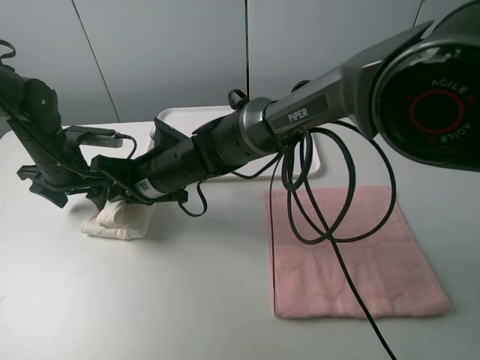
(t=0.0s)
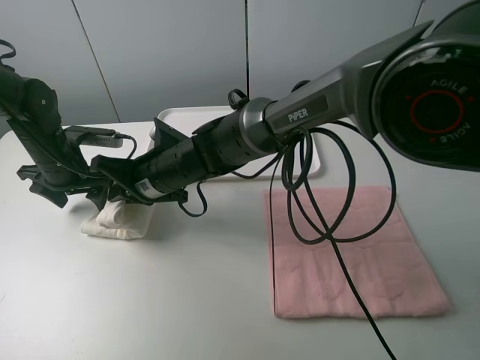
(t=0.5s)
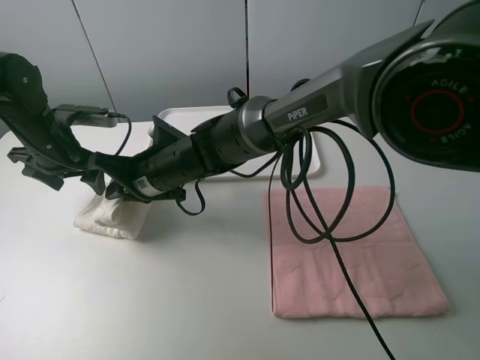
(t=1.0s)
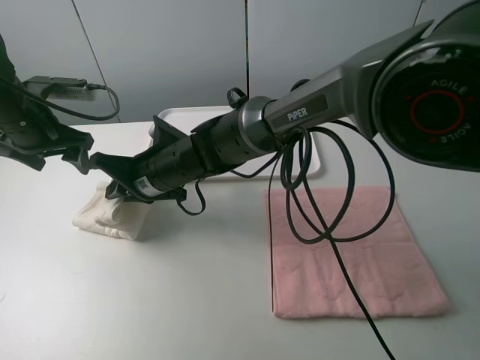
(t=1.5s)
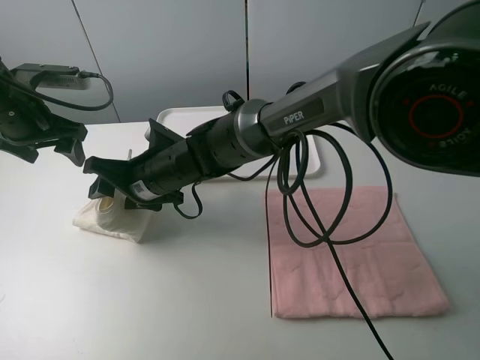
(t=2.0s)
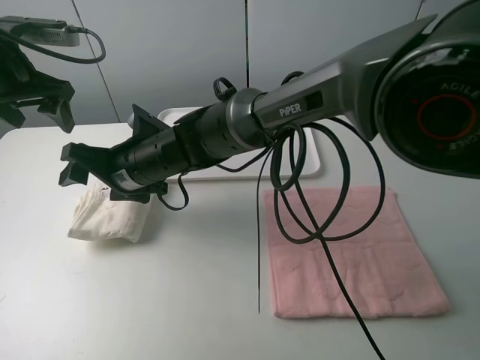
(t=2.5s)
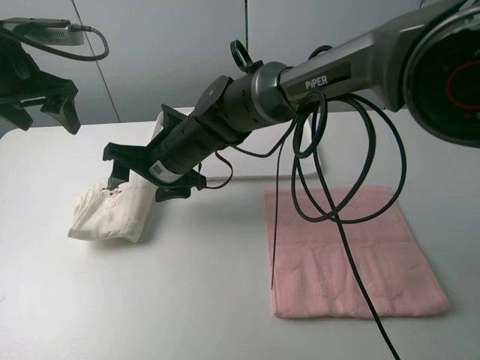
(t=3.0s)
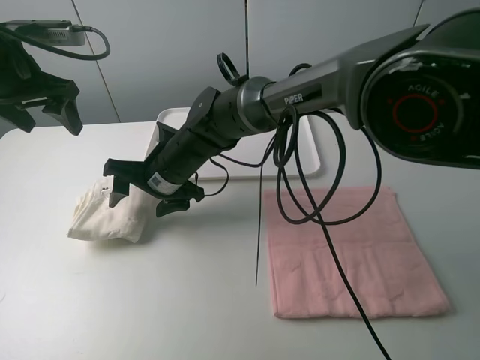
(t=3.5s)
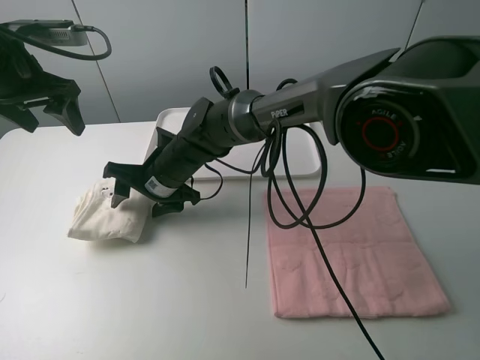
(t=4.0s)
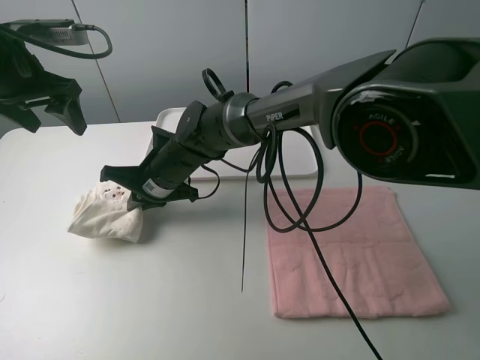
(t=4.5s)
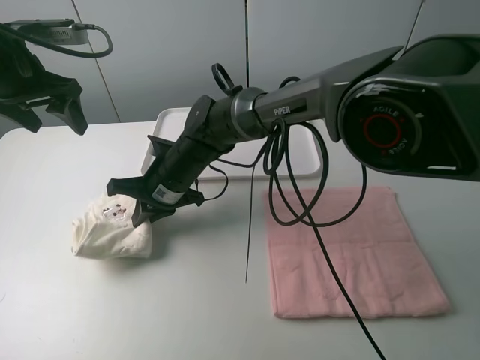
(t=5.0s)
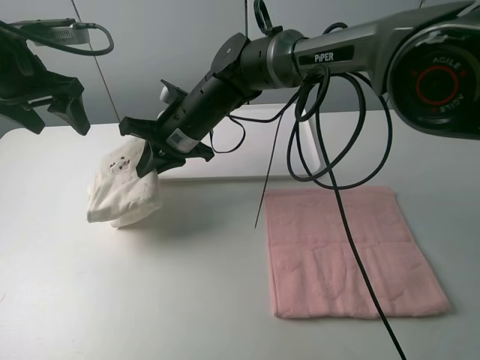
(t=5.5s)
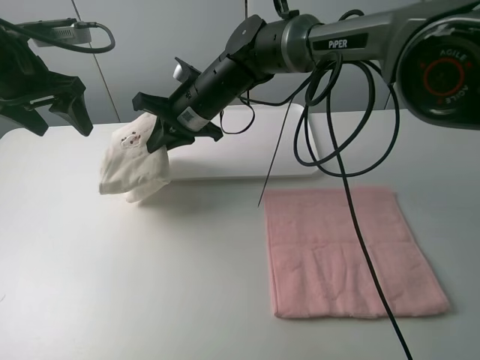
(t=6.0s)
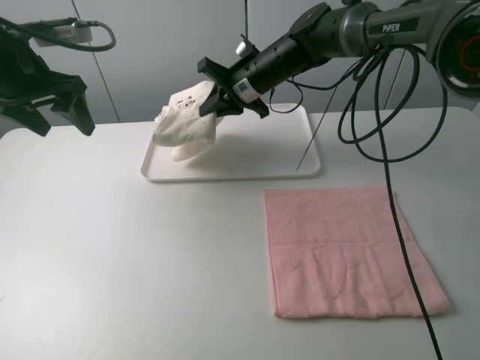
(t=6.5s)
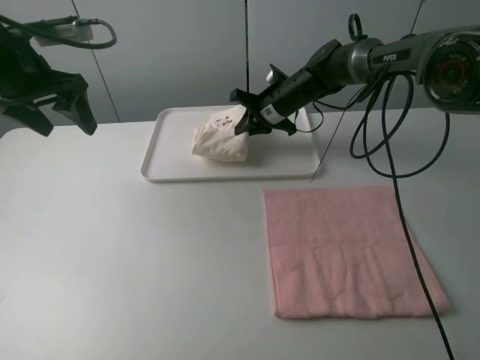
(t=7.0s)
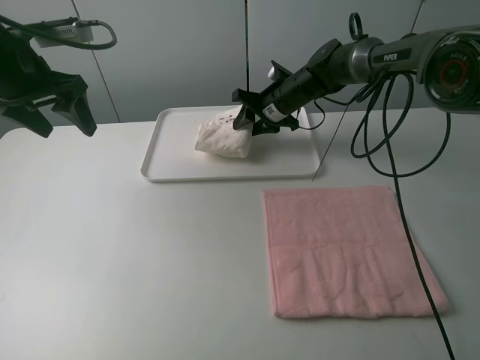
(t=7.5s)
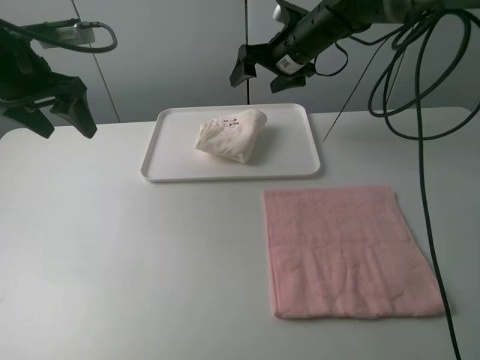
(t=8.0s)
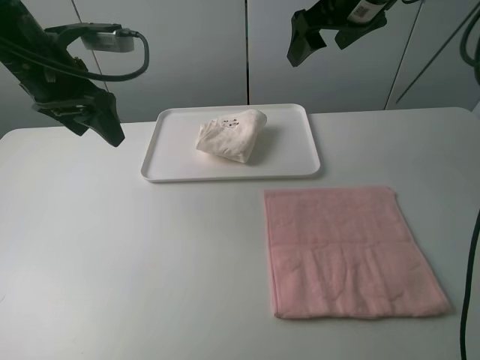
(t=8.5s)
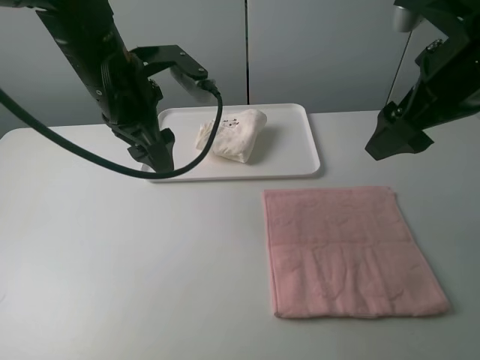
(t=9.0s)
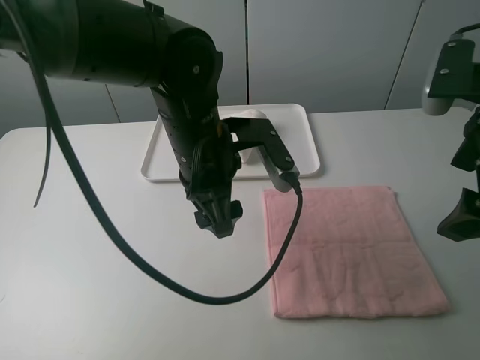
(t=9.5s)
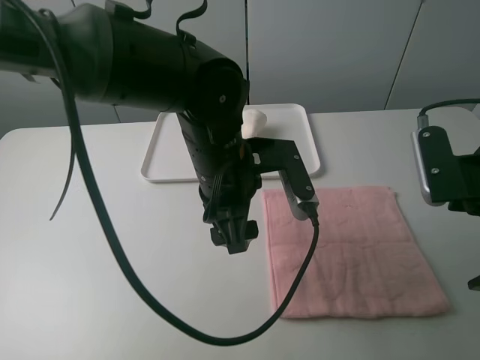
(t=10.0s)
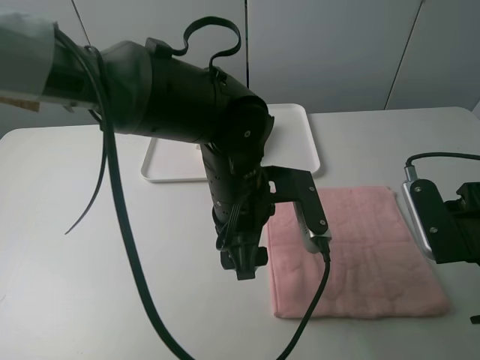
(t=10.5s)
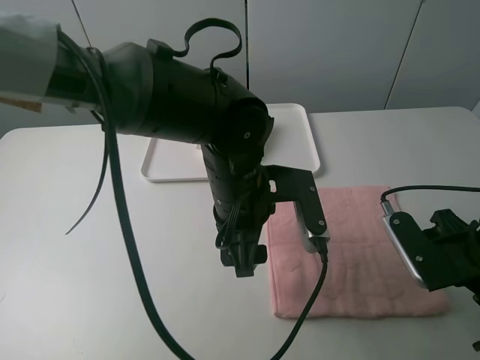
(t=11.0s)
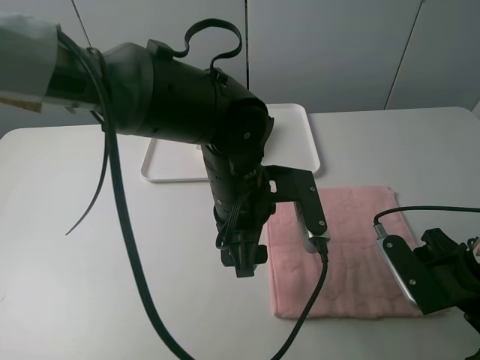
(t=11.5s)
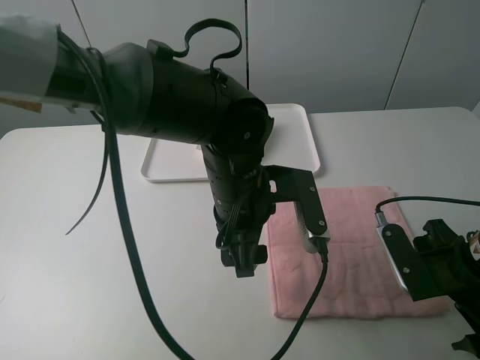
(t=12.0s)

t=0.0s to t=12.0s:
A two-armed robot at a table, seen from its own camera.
Task of the whole recording: fold one of the towels by two grippers and place it on the tray,then fold another towel by two grippers and place it on the folded towel.
Step, t=0.0s to t=2.5s: Fold the white towel from right to left with right gripper.
Step, t=3.0s to t=4.5s: Grasp the white towel with the right gripper.
Step, t=5.0s to t=7.5s: Move the white towel to the plate with the right gripper.
t=0.0s to t=2.0s: The left gripper travels upward by approximately 10 cm. Meanwhile the right gripper opens up.
t=2.0s to t=4.0s: The left gripper moves upward, approximately 5 cm.
t=4.0s to t=6.0s: The right gripper travels upward, forward and to the right by roughly 10 cm, and closes its fingers.
t=6.0s to t=8.0s: The right gripper moves to the right and forward, approximately 15 cm, and opens its fingers.
t=8.0s to t=10.0s: The right gripper goes roughly 35 cm backward and to the right. The left gripper shifts roughly 25 cm to the right.
t=10.0s to t=12.0s: The right gripper shifts roughly 10 cm downward.

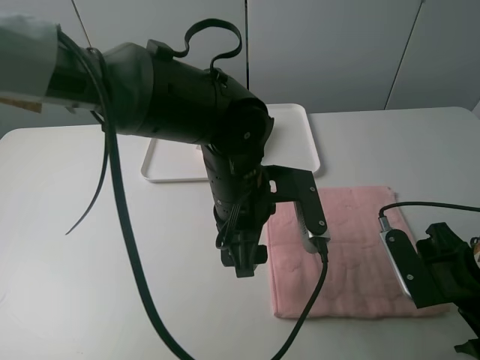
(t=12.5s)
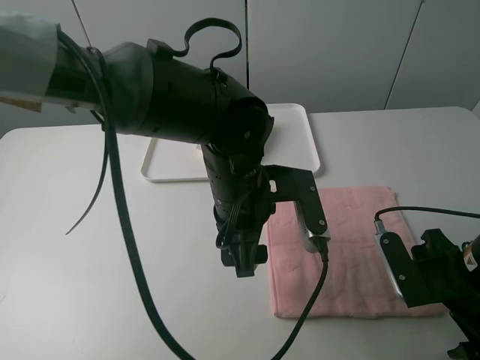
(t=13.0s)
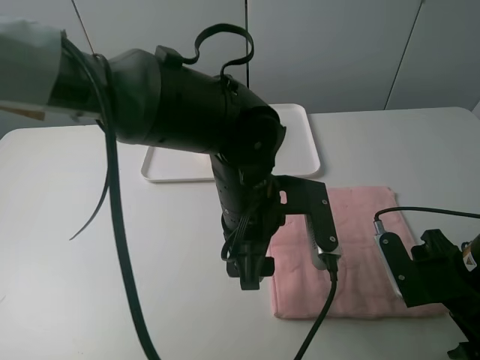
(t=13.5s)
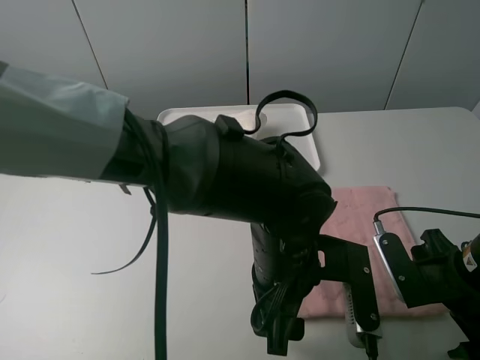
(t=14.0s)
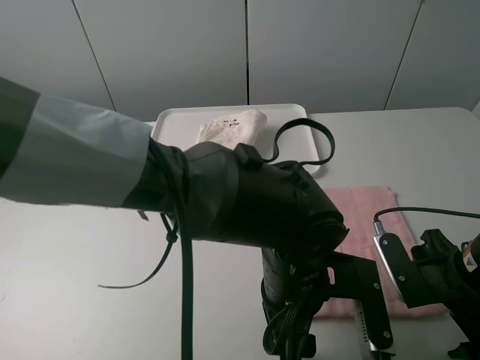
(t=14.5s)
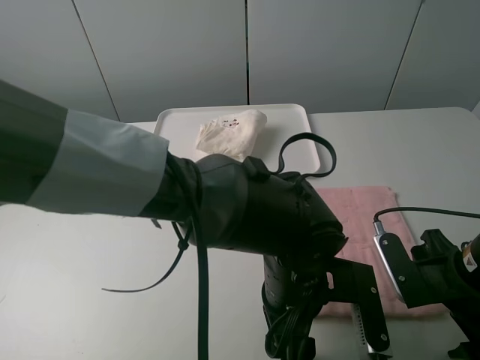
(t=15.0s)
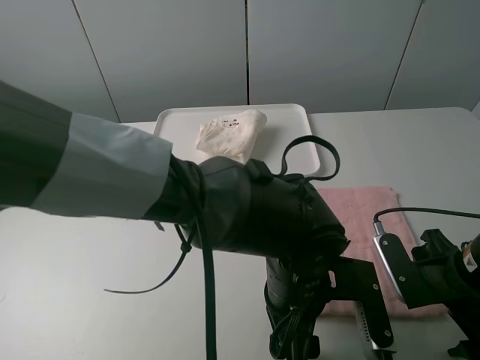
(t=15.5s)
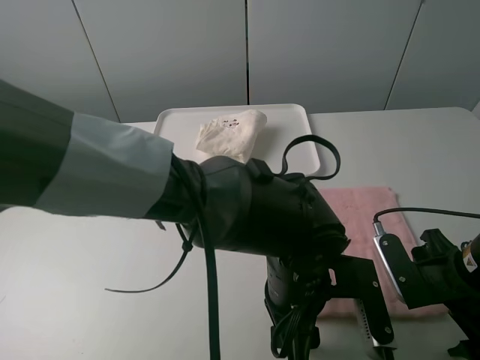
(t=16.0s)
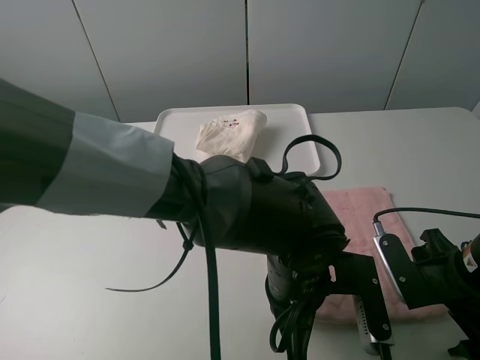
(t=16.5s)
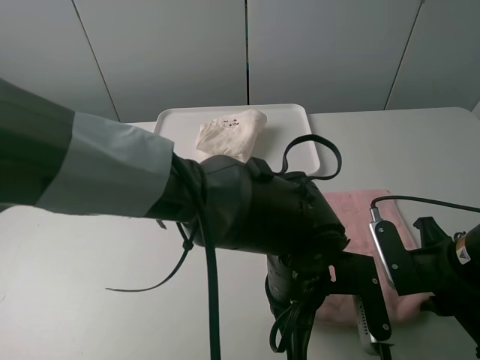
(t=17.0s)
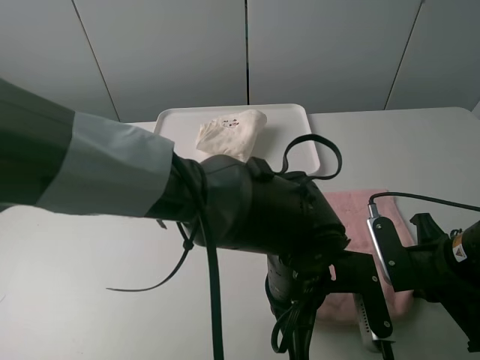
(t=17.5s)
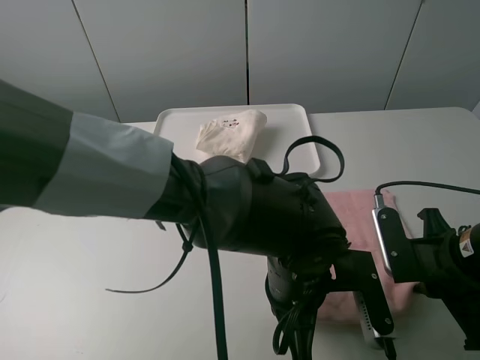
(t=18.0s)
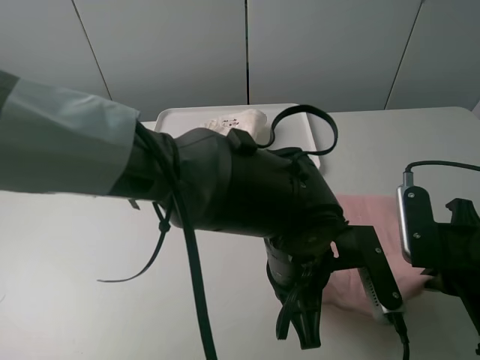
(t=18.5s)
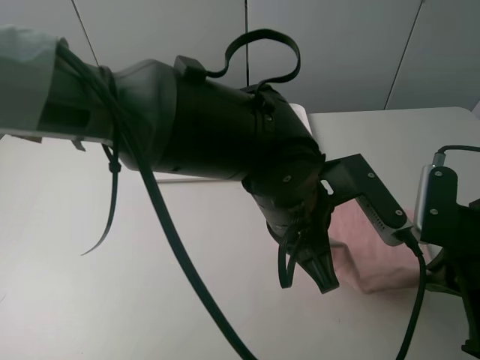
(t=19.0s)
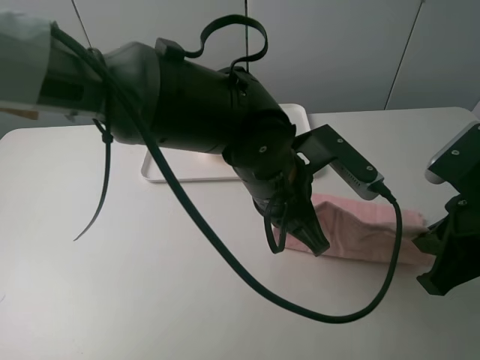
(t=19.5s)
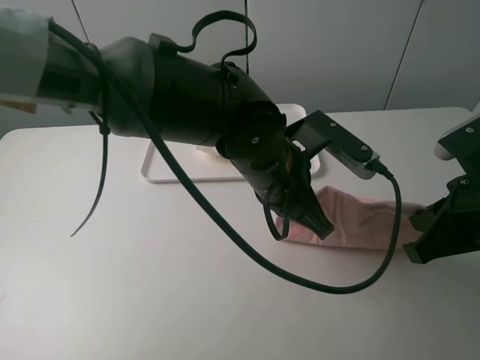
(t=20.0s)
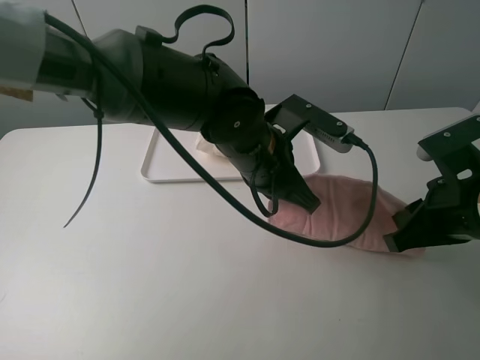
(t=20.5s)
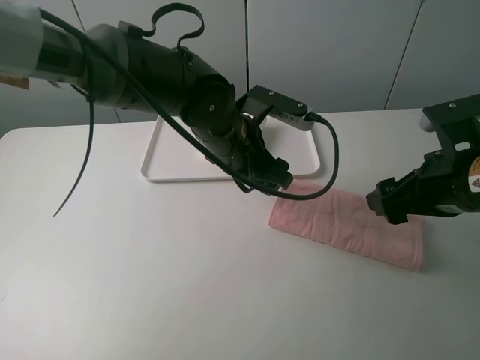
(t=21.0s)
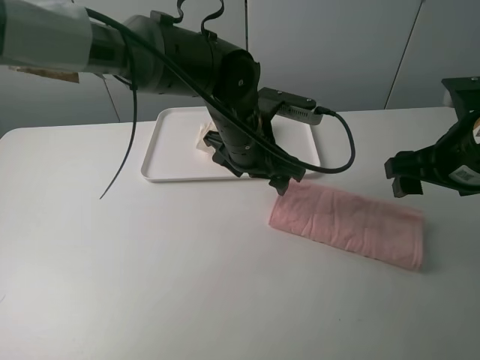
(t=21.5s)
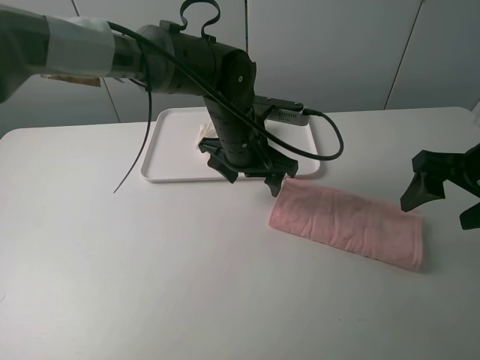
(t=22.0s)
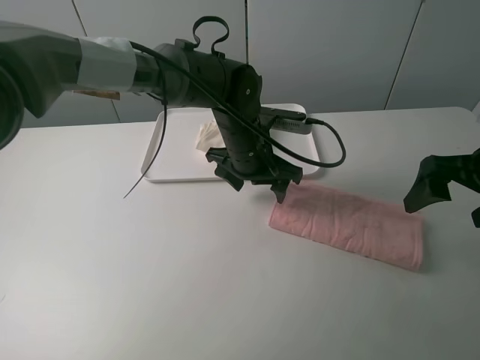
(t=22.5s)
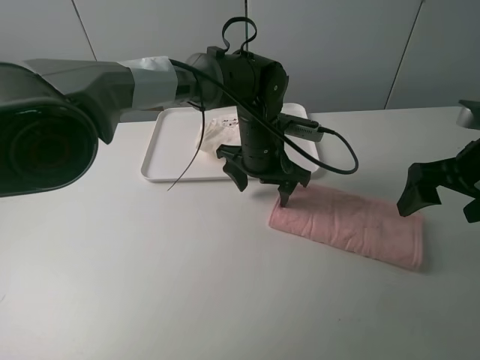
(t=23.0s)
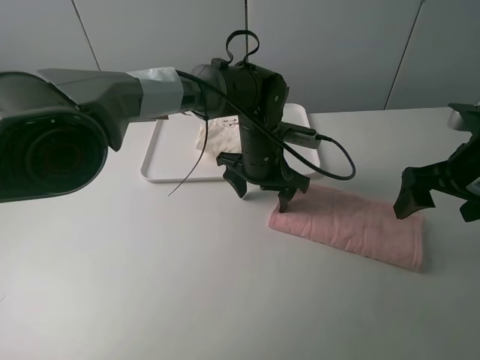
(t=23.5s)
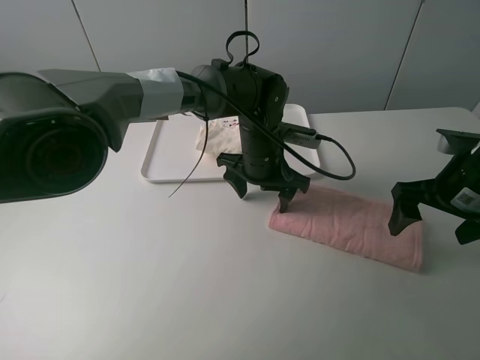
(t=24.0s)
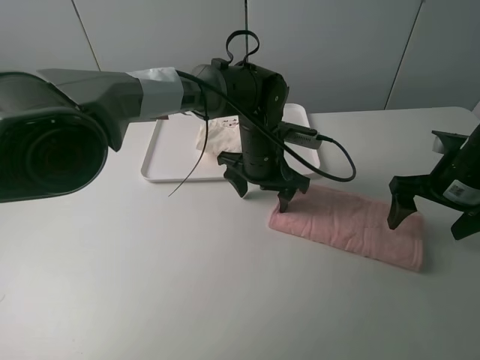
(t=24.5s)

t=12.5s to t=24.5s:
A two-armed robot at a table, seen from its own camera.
Task of the whole recording: fold one of the towels by two grippers and place it on the tray,then fold another towel by two grippers and place it on the folded towel.
Step, t=12.5s to t=17.5s: Grasp the pink towel with the left gripper.
Step, t=18.0s to t=21.0s: Fold the pink towel upwards with the left gripper.
Step, t=21.5s to t=23.5s: Press the pink towel with the left gripper.
t=12.5s to t=14.5s: The left gripper shifts roughly 10 cm backward and to the right.
t=14.5s to t=16.5s: The left gripper closes its fingers.
t=16.5s to t=18.5s: The right gripper heads upward, covering about 5 cm, and closes its fingers.
t=18.5s to t=20.5s: The left gripper goes about 10 cm forward.
t=20.5s to t=22.5s: The left gripper heads forward, covering some 5 cm, and opens up; the right gripper ends up roughly 10 cm from where it was, and opens its fingers.
t=22.5s to t=24.5s: The right gripper travels downward and forward by about 10 cm.

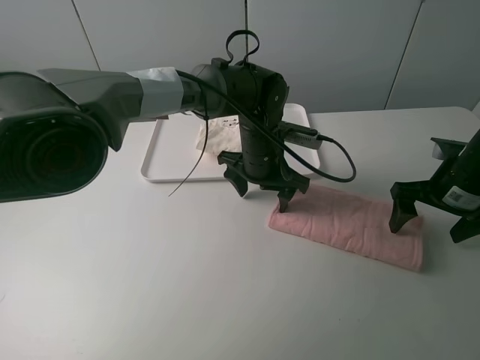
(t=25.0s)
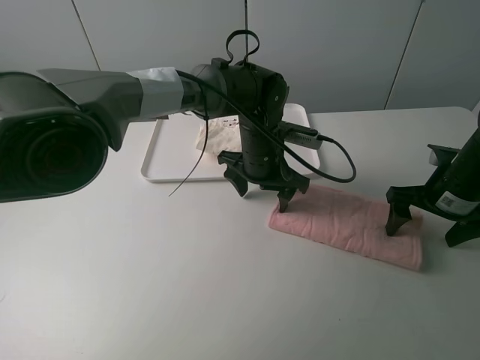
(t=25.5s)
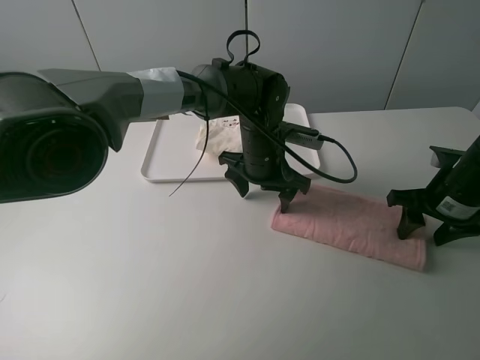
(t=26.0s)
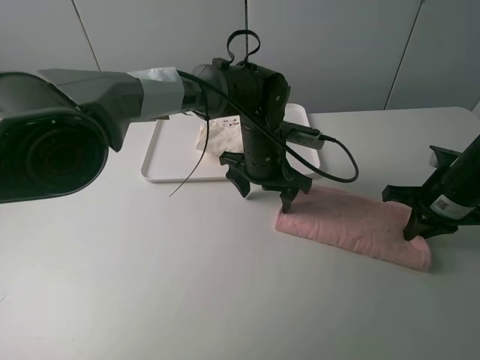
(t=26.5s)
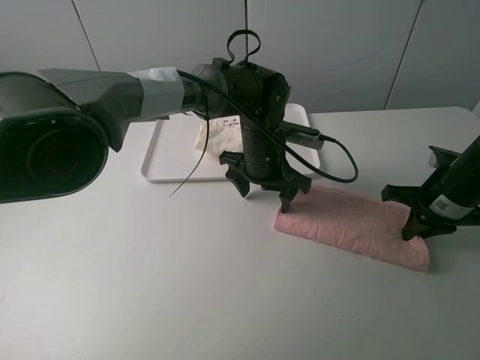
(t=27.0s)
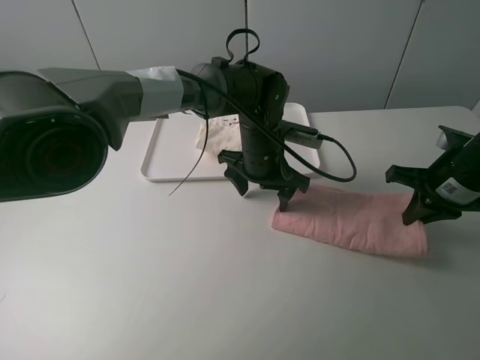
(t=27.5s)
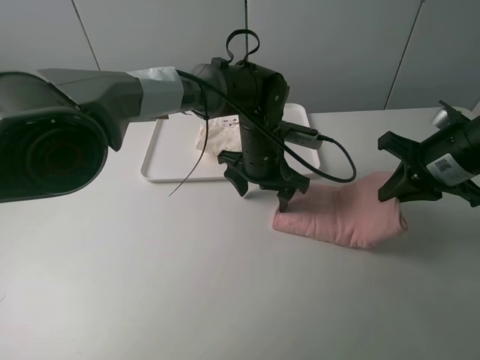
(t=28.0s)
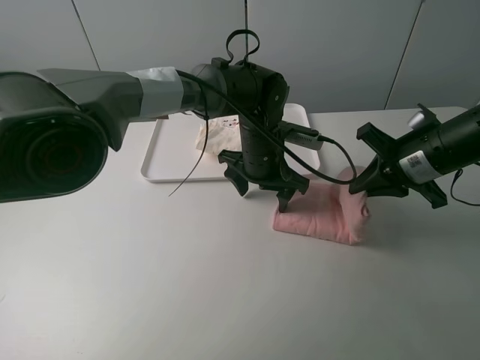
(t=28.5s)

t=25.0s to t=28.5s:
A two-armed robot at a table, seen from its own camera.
Task of the whole recording: fold one of the towels by two grippers and place it on the tray,then fold another towel by two grippers and place it on the folded towel.
Step, t=25.0s to t=26.5s: Grasp the pink towel with the right gripper.
t=25.0s to t=27.0s: The right gripper closes.
t=27.0s to t=28.5s: The right gripper travels upward and to the left by some 10 cm.
